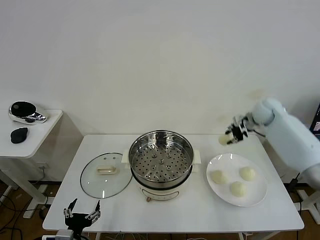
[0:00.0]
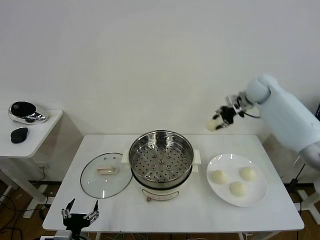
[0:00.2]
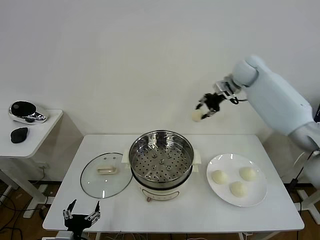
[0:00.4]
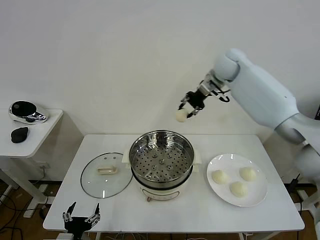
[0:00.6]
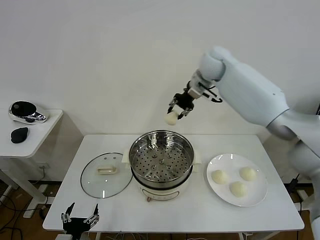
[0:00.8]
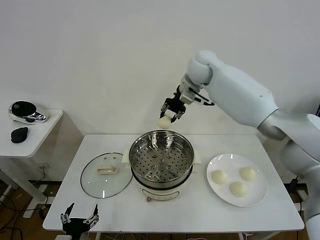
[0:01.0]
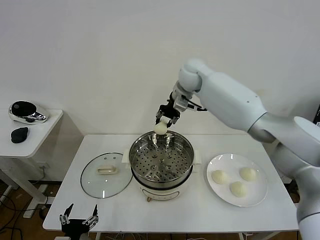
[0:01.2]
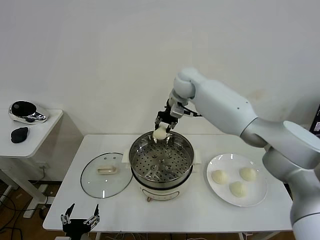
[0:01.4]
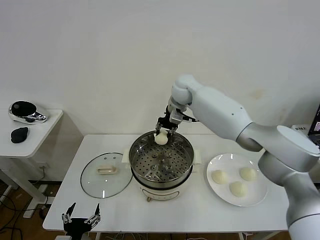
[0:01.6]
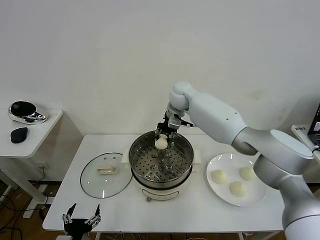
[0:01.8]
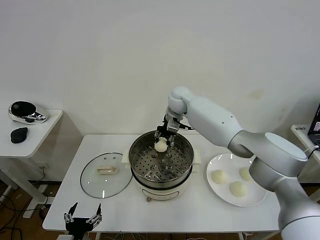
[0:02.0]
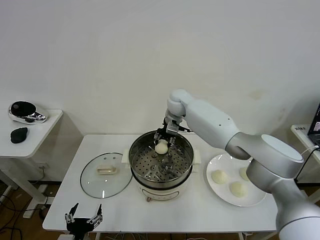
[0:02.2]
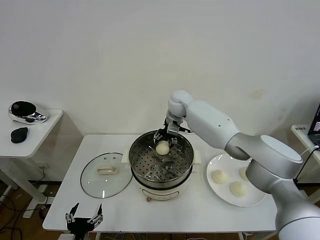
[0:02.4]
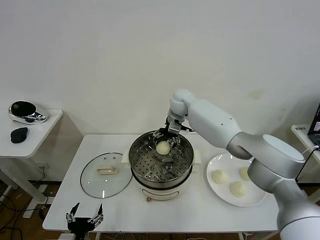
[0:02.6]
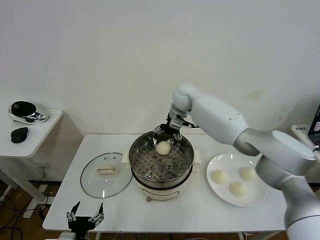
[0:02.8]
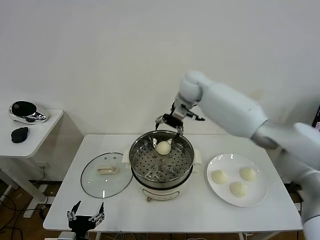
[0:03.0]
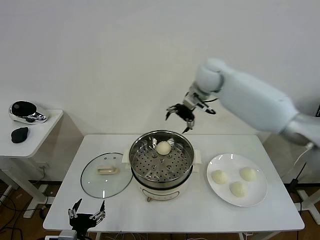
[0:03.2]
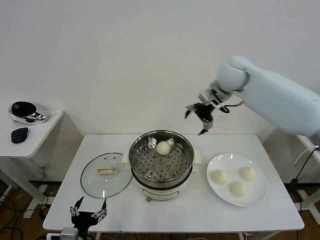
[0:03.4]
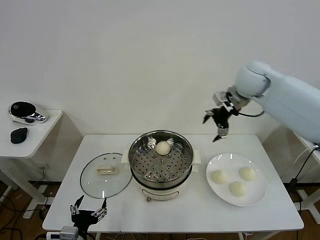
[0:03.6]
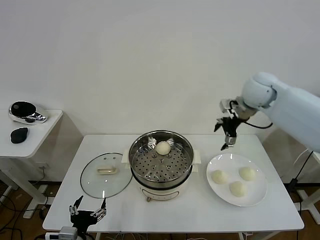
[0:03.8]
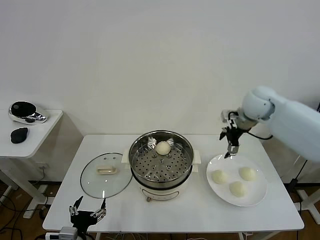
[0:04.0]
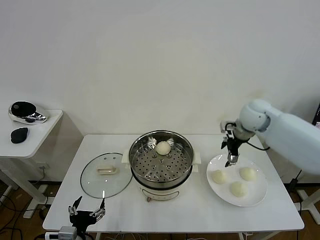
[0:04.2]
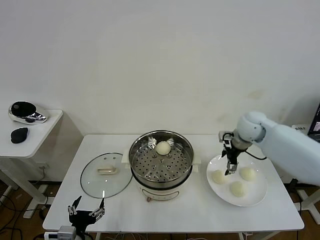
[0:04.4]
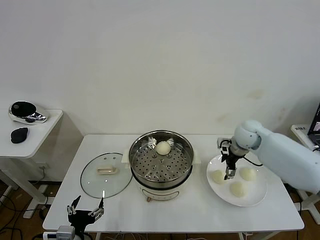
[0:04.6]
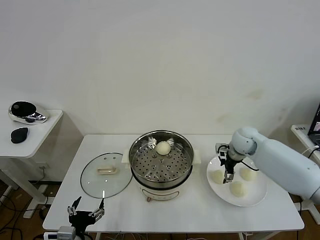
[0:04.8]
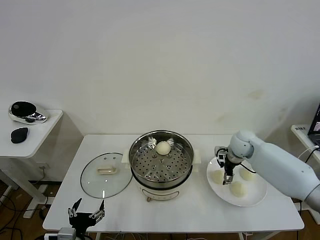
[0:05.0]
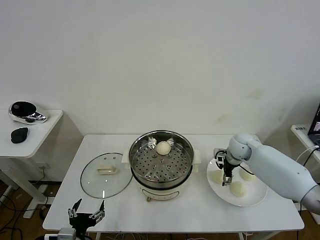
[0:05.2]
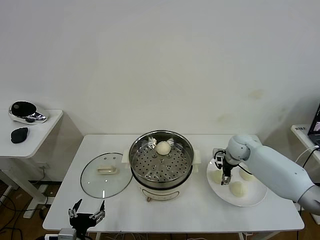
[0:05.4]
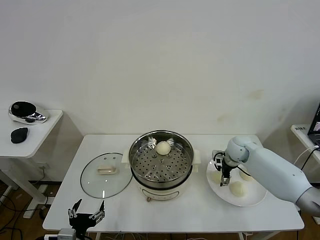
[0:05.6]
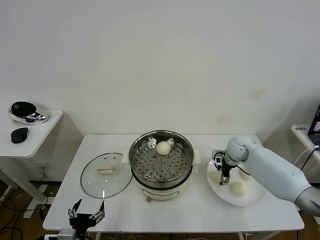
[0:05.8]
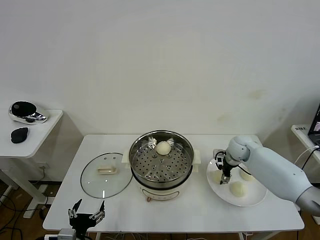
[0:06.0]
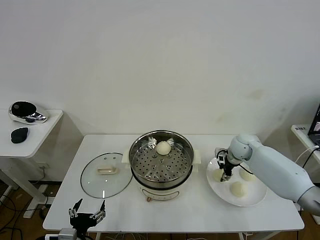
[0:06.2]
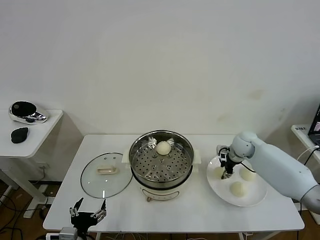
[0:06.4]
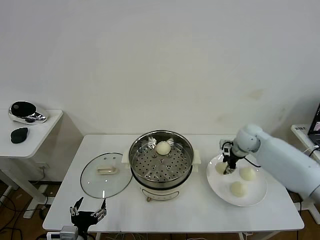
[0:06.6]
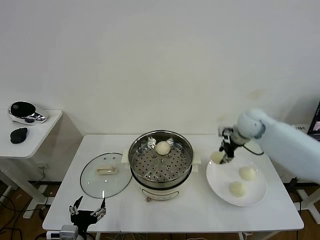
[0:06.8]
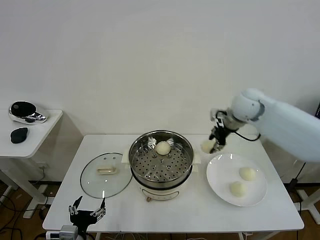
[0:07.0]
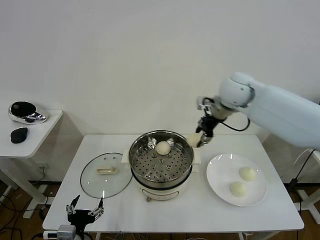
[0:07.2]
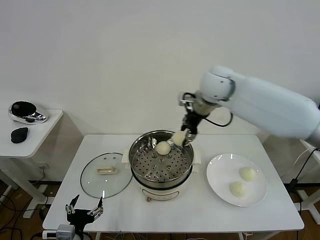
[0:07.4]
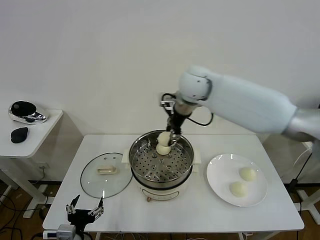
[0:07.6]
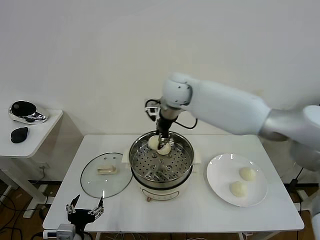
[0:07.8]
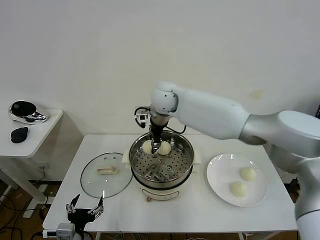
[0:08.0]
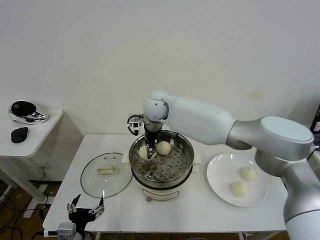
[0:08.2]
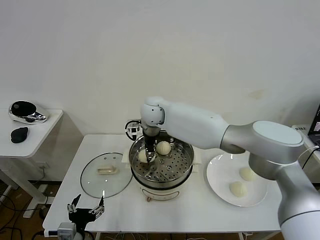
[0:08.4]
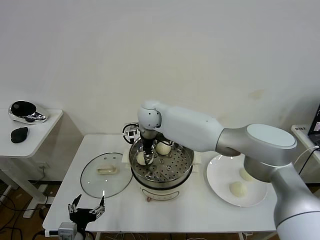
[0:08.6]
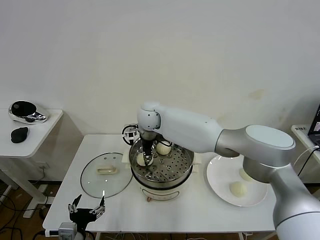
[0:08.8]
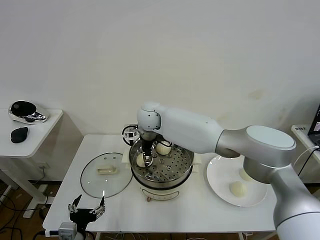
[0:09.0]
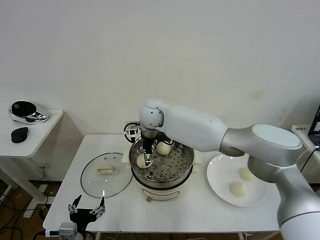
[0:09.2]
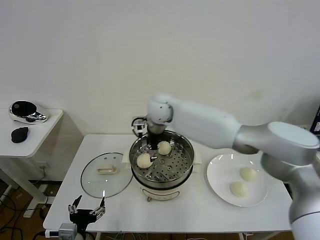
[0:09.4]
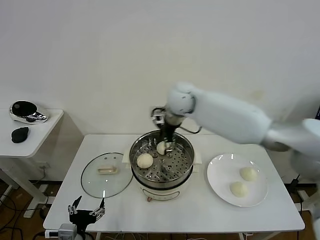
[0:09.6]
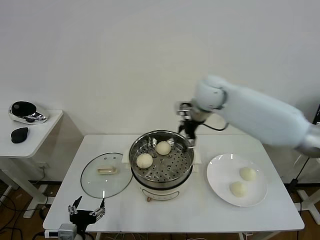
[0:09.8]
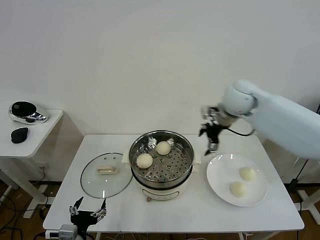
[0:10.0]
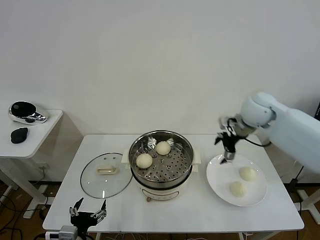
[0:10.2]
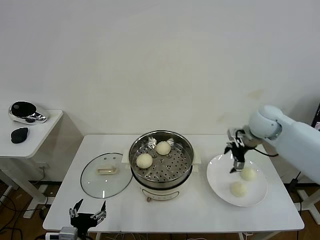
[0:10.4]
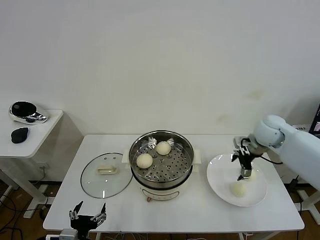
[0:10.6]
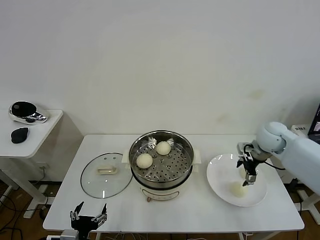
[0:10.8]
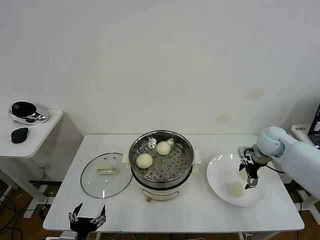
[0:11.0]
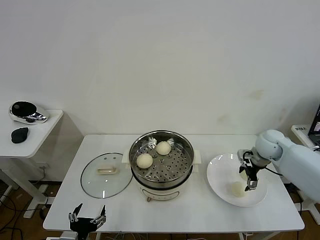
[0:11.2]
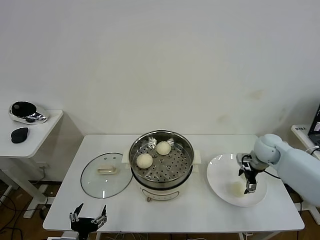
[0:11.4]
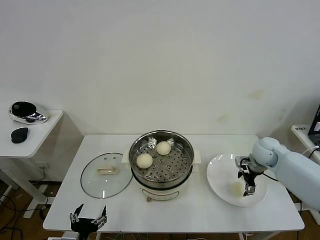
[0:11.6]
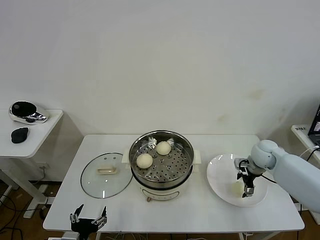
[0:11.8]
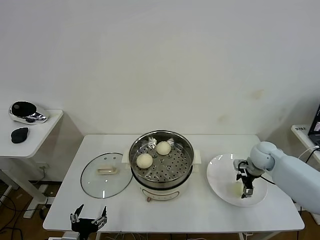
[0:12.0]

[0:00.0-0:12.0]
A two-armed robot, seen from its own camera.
Step, 0:00.0 to 0:02.4: Place the baozi on the steamer with right gripper.
Step, 0:02.6 to 0:06.2: Grasp the baozi in the plate with right gripper.
Step, 0:06.4 to 0:09.0: Place the baozi on the steamer with right gripper.
0:00.0 to 0:01.6: The right gripper goes roughly 30 cm to the left.
0:01.6 to 0:03.0: The right gripper travels upward and to the right by approximately 10 cm, and opens its fingers.
0:03.0 to 0:04.4: The right gripper is displaced to the right, downward and backward by approximately 25 cm.
0:04.4 to 0:06.0: The right gripper moves downward, some 10 cm.
0:06.0 to 0:07.6: The right gripper shifts roughly 35 cm upward and to the left, and closes up.
0:07.6 to 0:09.0: The right gripper goes about 15 cm downward and to the left, and opens up.
0:09.0 to 0:10.4: The right gripper goes about 35 cm to the right.
0:10.4 to 0:12.0: The right gripper travels downward by about 15 cm.

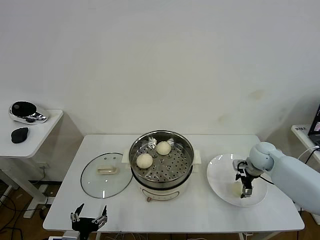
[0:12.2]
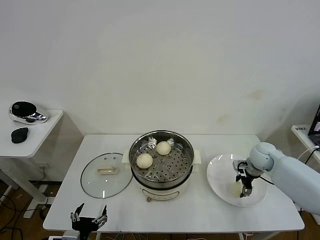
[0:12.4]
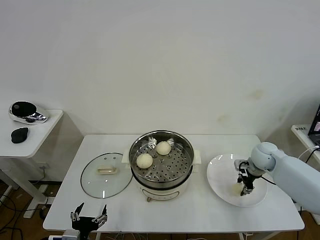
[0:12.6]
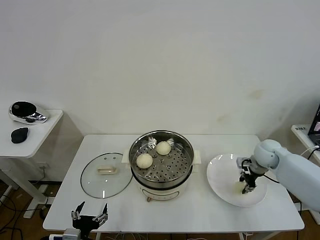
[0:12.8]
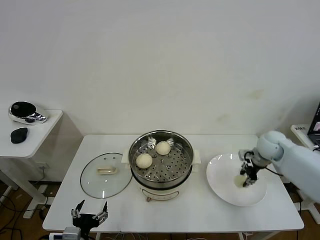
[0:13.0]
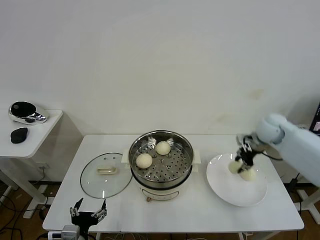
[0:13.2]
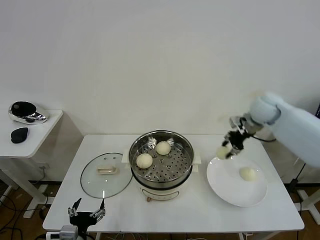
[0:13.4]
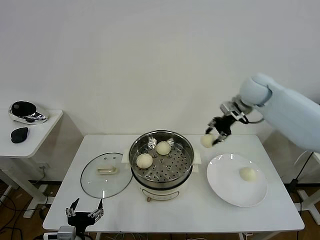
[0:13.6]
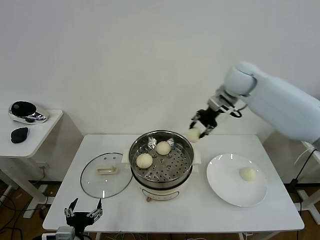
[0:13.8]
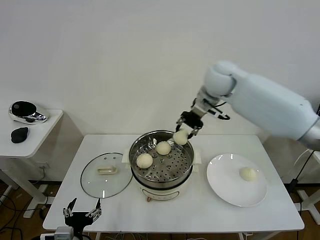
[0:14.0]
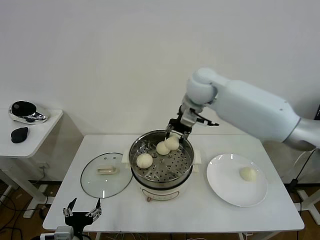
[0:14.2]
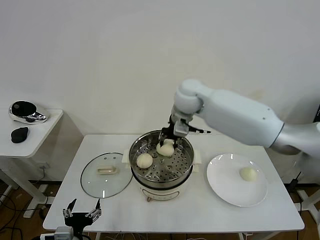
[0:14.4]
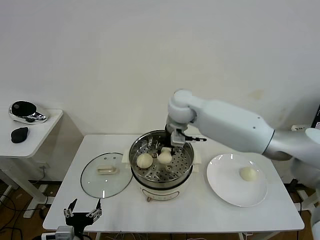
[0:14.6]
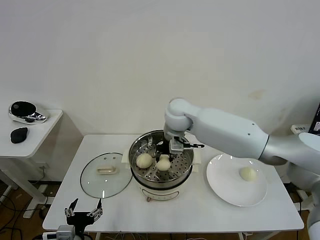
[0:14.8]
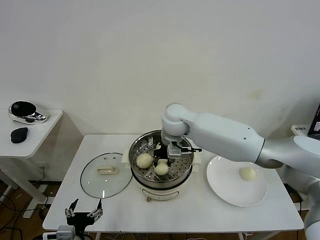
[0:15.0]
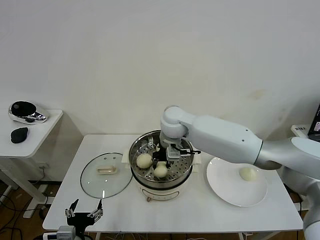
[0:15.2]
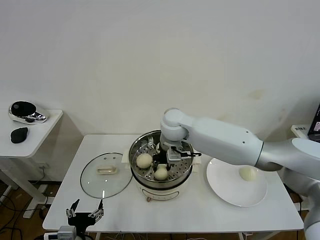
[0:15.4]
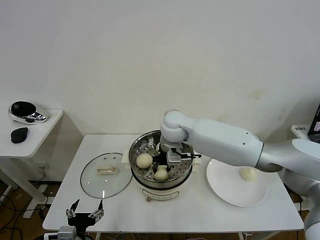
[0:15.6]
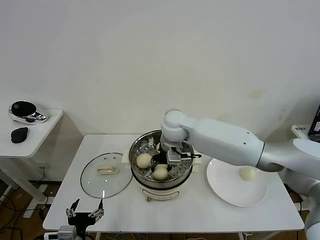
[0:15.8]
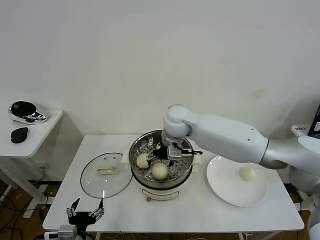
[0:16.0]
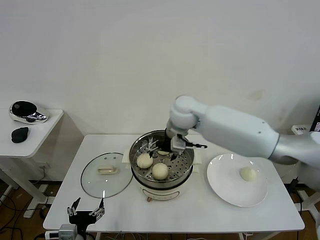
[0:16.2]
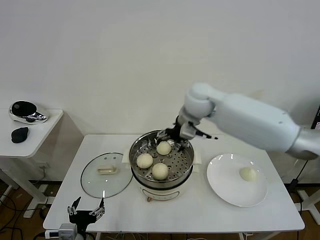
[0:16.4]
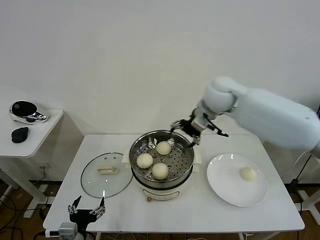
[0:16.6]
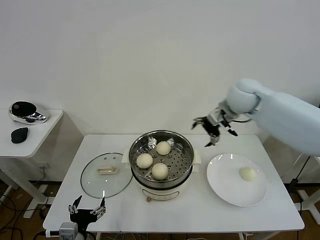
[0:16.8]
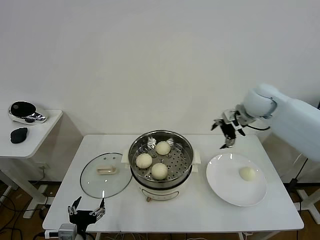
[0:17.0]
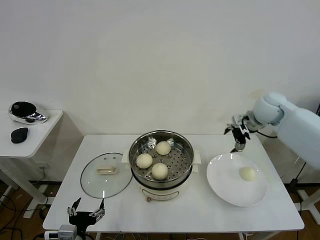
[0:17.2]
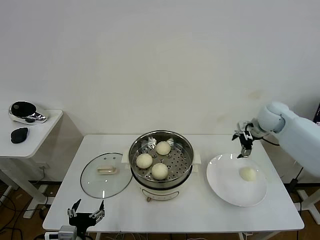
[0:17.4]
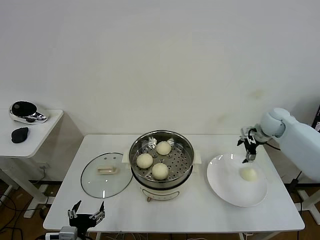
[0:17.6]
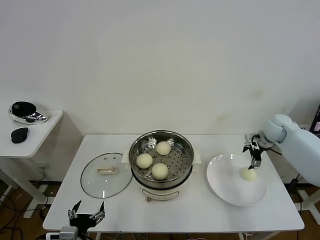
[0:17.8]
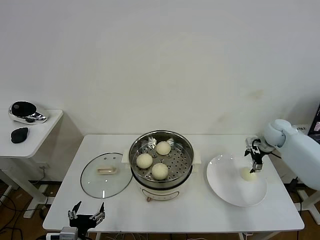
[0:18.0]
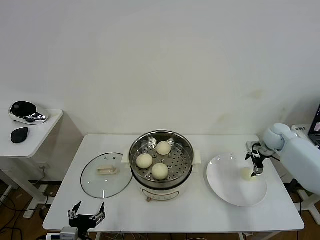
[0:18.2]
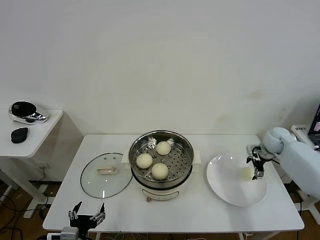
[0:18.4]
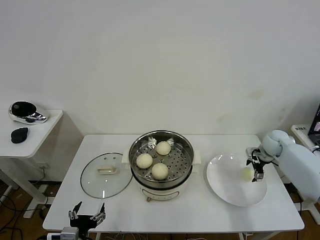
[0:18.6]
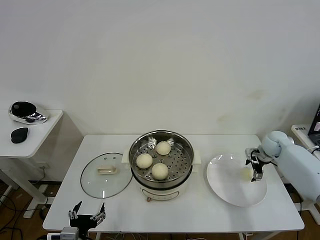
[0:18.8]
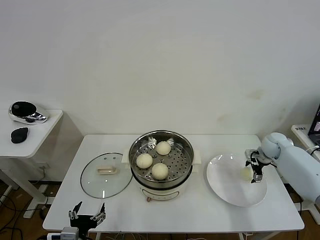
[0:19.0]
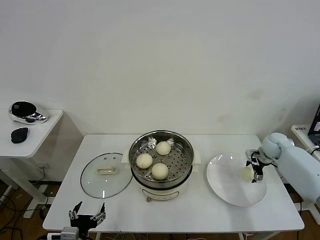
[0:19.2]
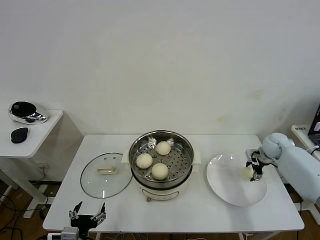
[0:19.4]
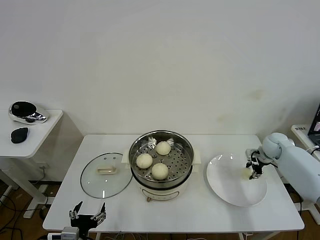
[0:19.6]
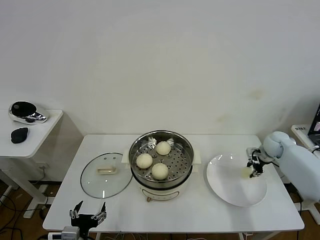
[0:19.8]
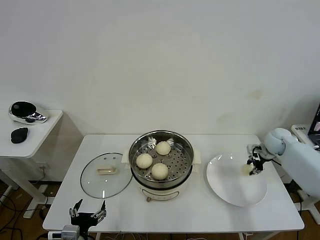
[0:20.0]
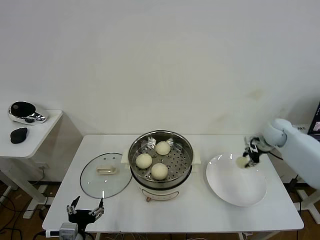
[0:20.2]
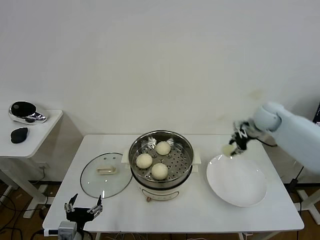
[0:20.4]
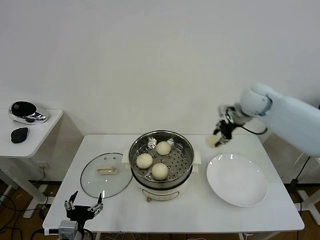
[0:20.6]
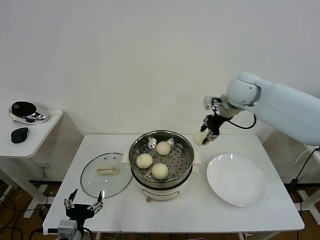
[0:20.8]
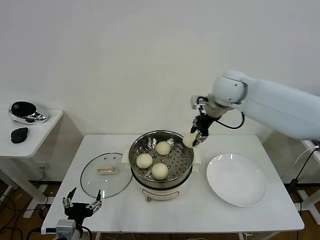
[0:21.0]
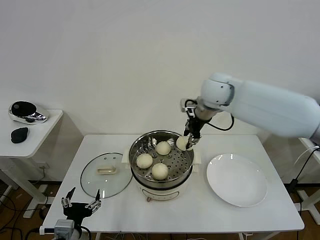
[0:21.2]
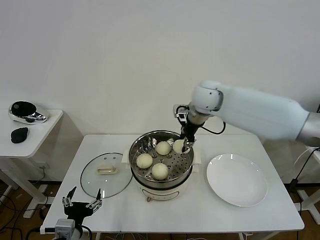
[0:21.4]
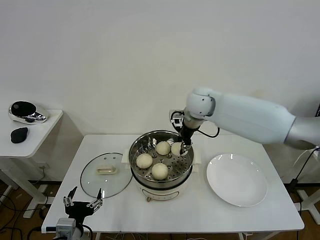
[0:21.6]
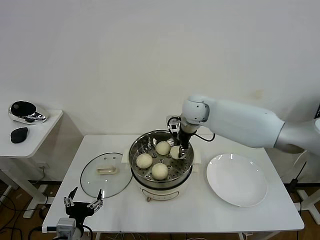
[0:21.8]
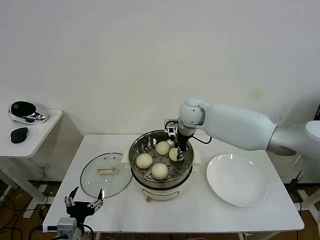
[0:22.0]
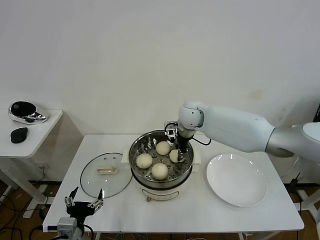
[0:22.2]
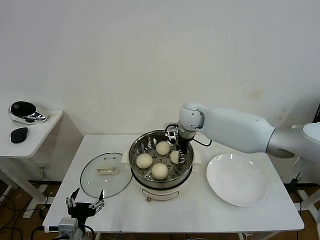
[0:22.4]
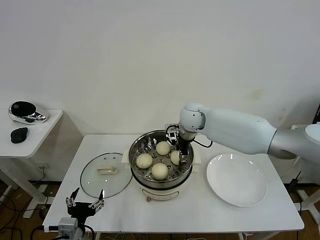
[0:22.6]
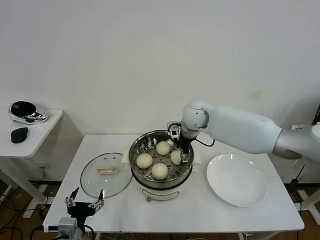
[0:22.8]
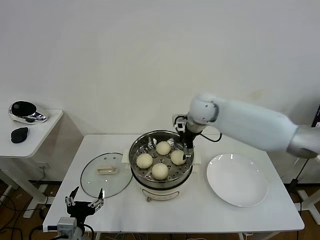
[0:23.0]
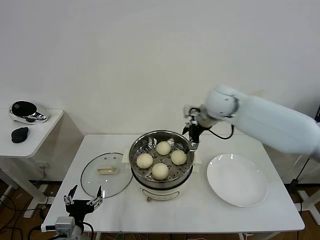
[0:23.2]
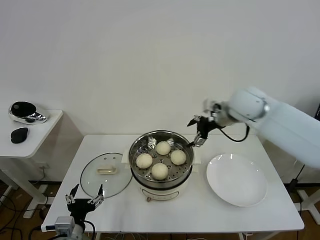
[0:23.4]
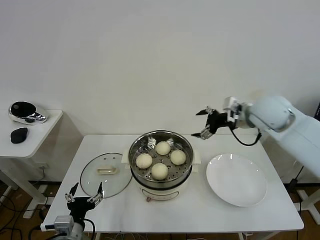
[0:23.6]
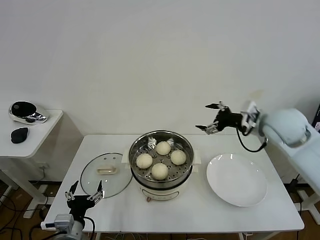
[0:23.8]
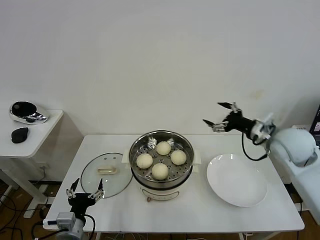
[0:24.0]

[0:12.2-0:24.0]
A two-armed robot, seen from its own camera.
Step, 0:12.8 to 0:16.0: Place the baozi on the steamer with right gripper.
Step, 0:16.2 to 0:19.8: Grasp the baozi in the plate with right gripper.
Step, 0:20.0 to 0:22.8: Place the baozi on the steamer with right gripper.
0:12.2 to 0:13.6: The right gripper goes about 25 cm upward, and closes.
0:13.6 to 0:15.2: The right gripper goes some 25 cm to the left.
0:15.2 to 0:16.6: The right gripper travels to the right and upward by approximately 15 cm, and opens its fingers.
0:16.6 to 0:18.2: The right gripper travels to the right and downward by roughly 30 cm.
0:18.2 to 0:19.6: The right gripper closes its fingers.
0:19.6 to 0:21.0: The right gripper travels to the left and upward by about 35 cm.
0:21.0 to 0:22.6: The right gripper heads downward and to the left, covering some 15 cm, and opens its fingers.
0:22.6 to 0:24.0: The right gripper goes roughly 30 cm to the right and backward, and opens its fingers.
